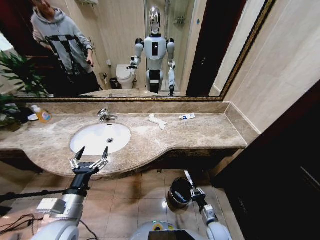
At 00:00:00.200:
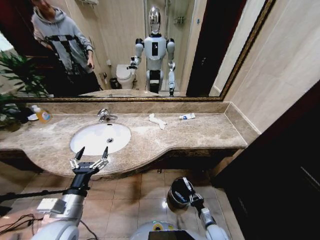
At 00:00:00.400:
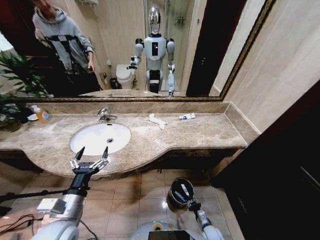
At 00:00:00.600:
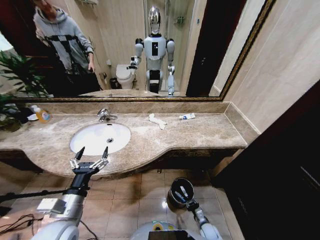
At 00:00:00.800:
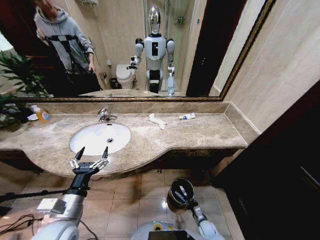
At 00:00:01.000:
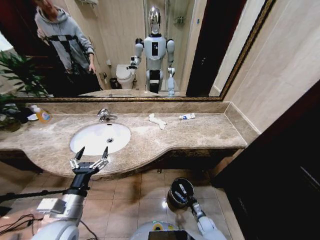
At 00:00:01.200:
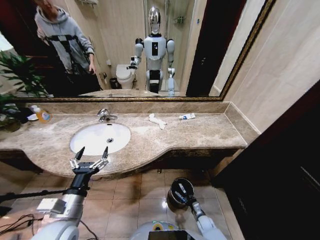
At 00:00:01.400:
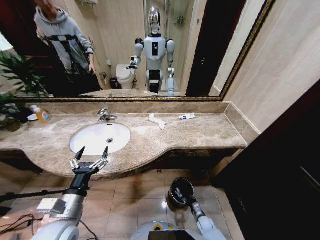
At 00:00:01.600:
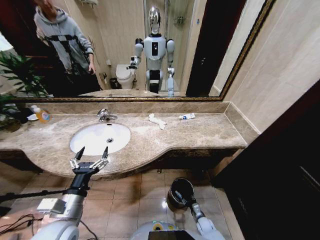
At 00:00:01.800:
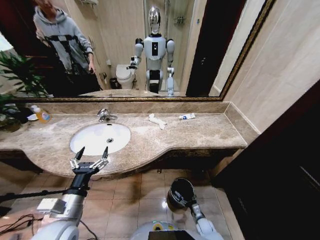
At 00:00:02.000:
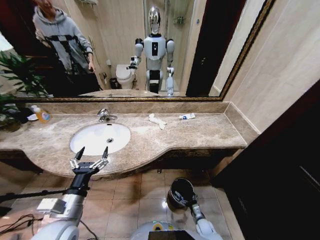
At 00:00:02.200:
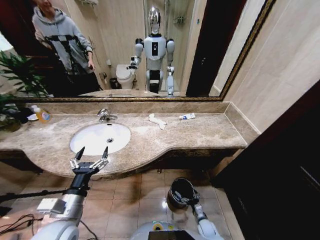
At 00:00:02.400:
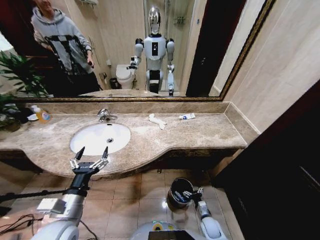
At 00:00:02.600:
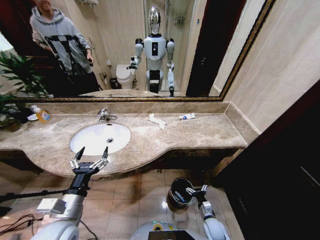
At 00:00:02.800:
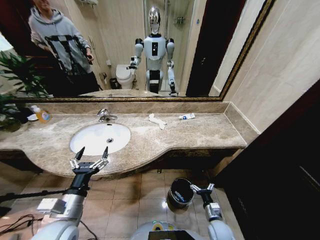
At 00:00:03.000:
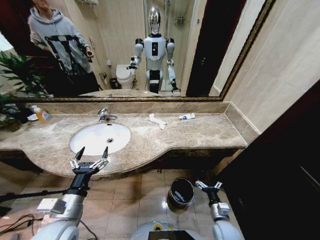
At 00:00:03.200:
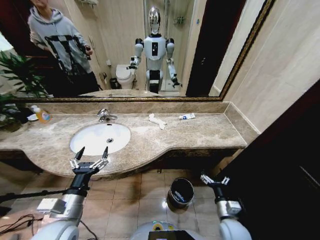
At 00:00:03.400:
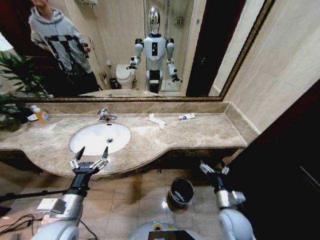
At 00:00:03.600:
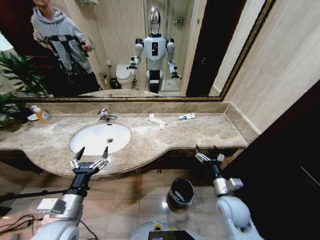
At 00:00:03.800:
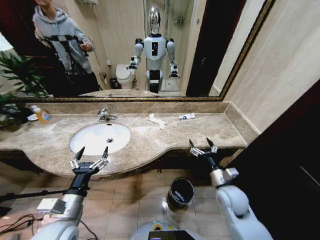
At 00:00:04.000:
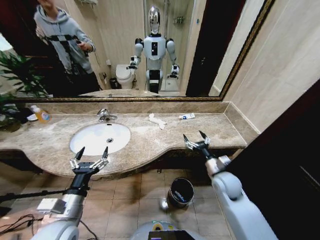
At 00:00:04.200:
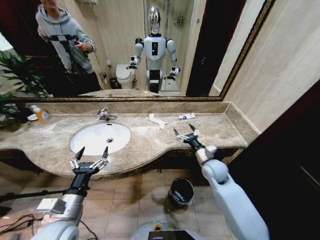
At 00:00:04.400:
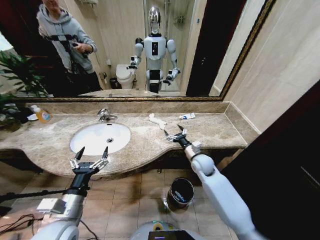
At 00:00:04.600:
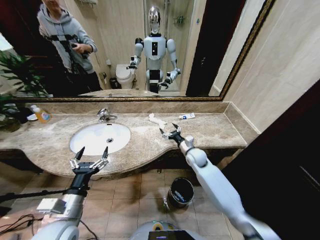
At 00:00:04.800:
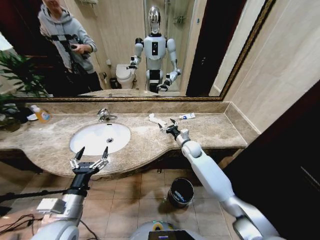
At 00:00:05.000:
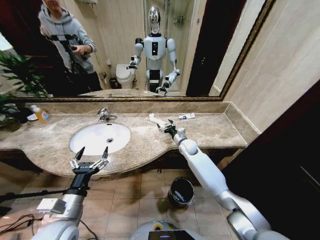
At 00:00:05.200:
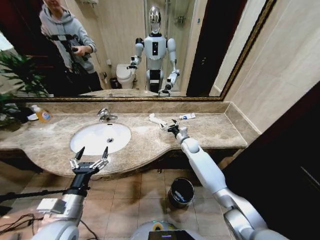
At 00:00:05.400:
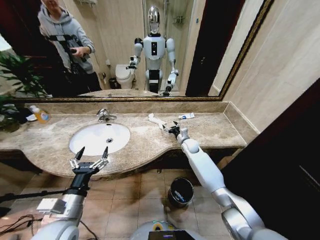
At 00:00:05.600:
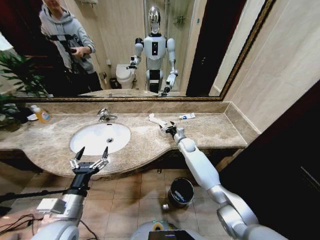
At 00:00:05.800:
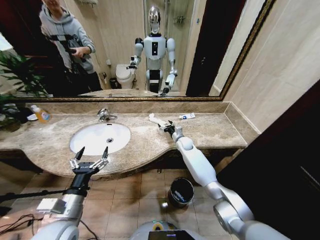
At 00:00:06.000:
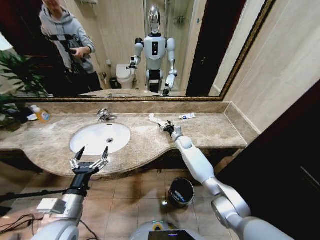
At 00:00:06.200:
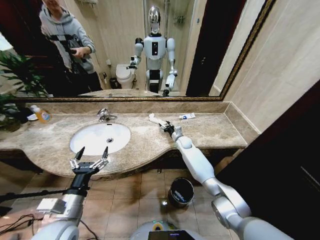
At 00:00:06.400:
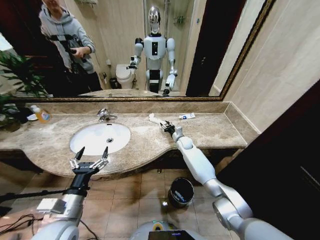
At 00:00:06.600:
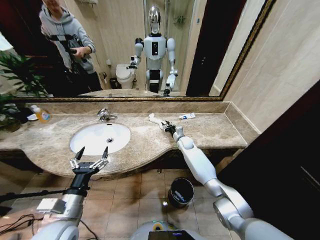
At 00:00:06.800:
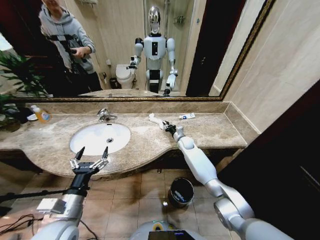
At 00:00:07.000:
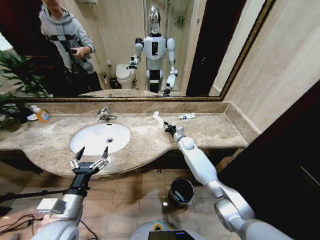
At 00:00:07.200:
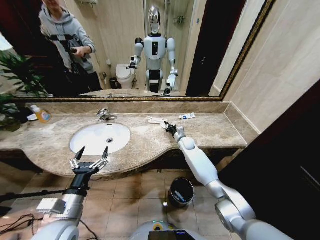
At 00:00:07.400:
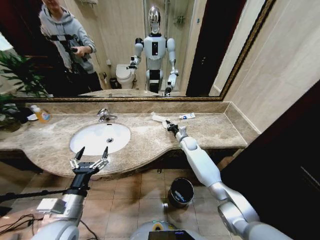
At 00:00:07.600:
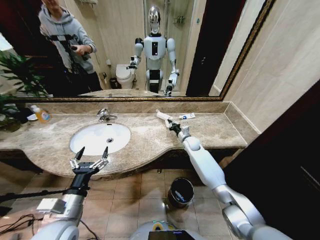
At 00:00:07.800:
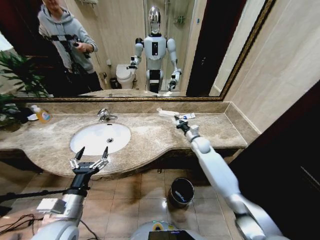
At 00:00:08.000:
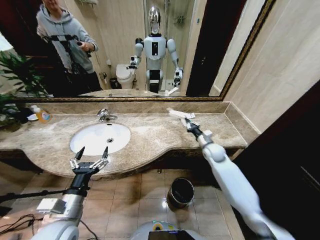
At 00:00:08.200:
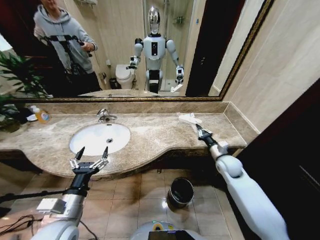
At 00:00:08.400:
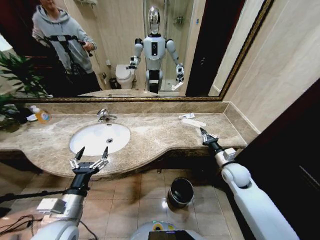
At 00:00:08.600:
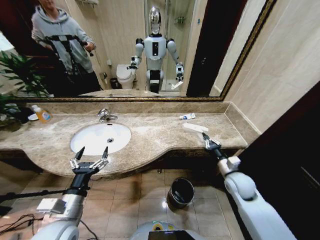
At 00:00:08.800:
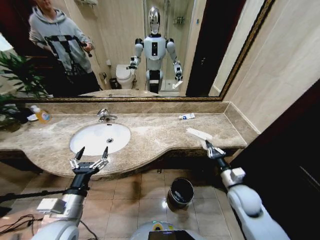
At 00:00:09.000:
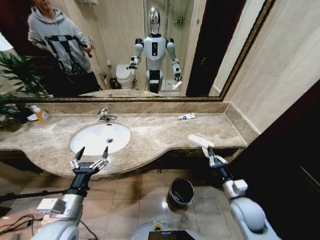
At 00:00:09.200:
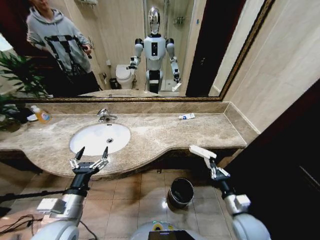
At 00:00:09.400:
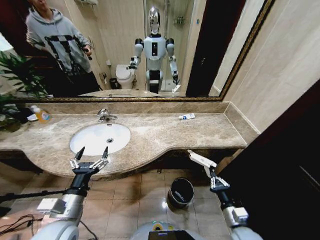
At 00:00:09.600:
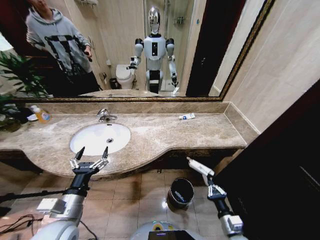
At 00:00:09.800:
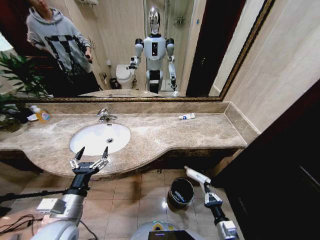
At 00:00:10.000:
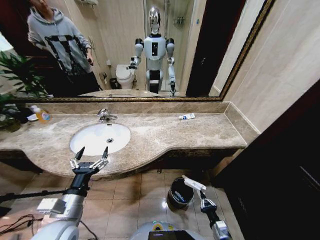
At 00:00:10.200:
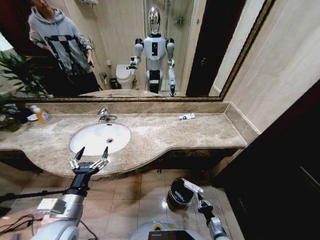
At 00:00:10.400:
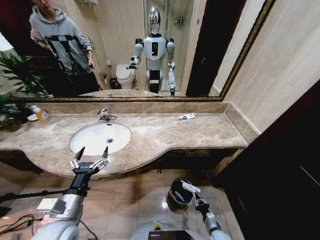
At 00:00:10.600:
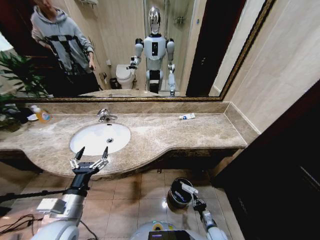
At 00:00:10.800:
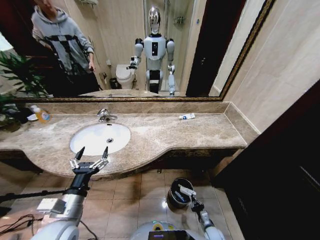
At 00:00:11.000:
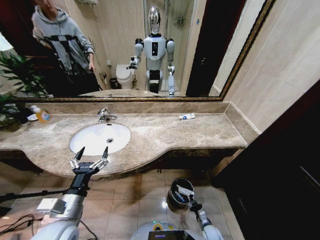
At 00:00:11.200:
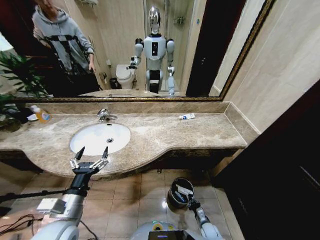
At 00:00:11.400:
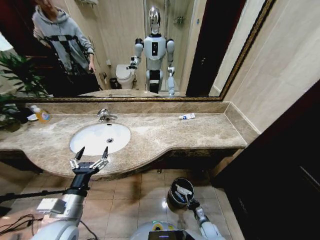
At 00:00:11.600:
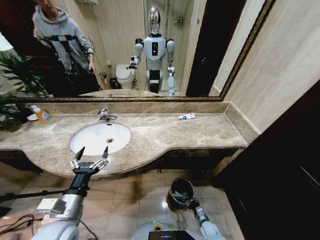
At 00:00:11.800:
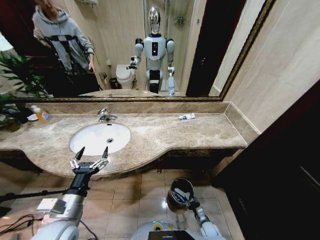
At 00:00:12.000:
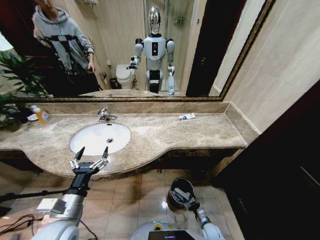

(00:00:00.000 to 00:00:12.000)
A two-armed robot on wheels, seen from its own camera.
Task of the whole recording: Pick up the trash from the sink and place it in the trash bin.
00:00:00.000 - 00:00:01.600: The right gripper shifts some 15 cm downward.
00:00:01.600 - 00:00:03.000: The right gripper is displaced upward by approximately 20 cm, and opens up.
00:00:03.000 - 00:00:04.400: The right gripper shifts some 30 cm forward and upward.
00:00:04.400 - 00:00:06.000: The right gripper travels forward by roughly 15 cm.
00:00:06.000 - 00:00:07.600: The right gripper shifts by approximately 5 cm, and closes.
00:00:07.600 - 00:00:09.000: The right gripper is displaced backward by some 35 cm.
00:00:09.000 - 00:00:10.400: The right gripper shifts roughly 25 cm downward.
00:00:10.400 - 00:00:12.000: The right gripper moves downward, roughly 5 cm, and opens up.

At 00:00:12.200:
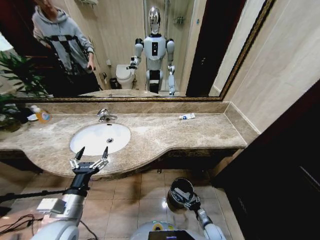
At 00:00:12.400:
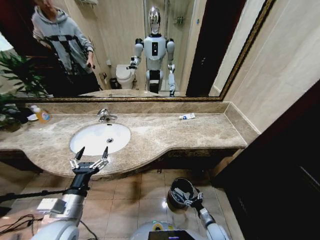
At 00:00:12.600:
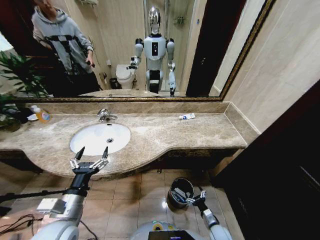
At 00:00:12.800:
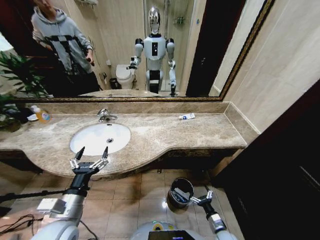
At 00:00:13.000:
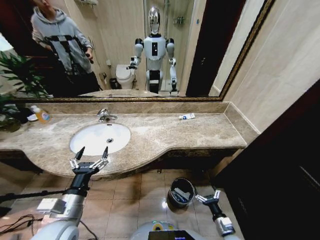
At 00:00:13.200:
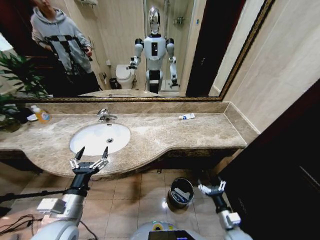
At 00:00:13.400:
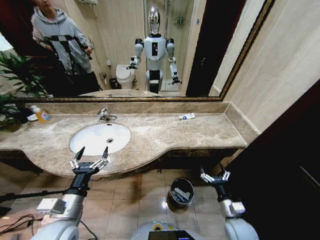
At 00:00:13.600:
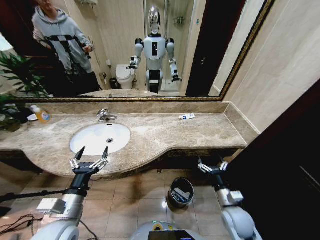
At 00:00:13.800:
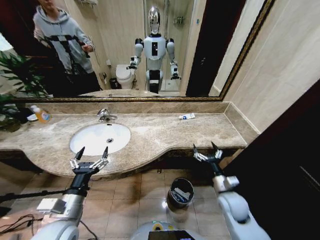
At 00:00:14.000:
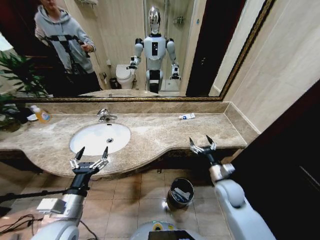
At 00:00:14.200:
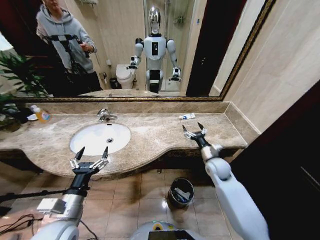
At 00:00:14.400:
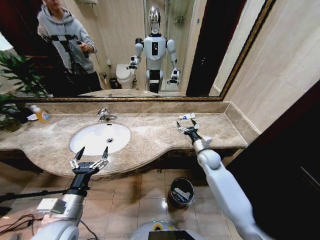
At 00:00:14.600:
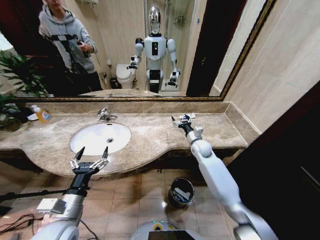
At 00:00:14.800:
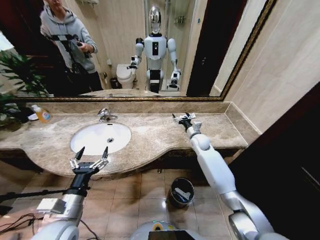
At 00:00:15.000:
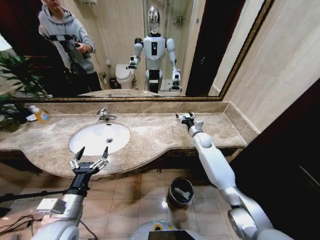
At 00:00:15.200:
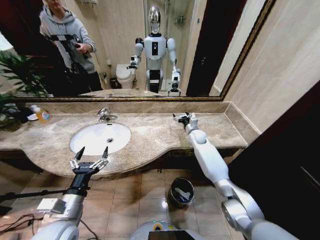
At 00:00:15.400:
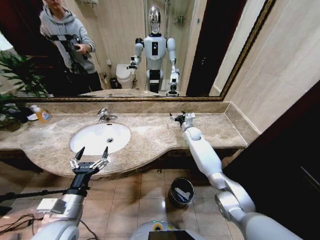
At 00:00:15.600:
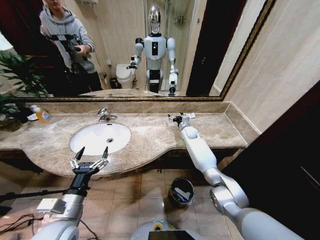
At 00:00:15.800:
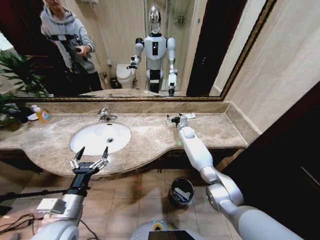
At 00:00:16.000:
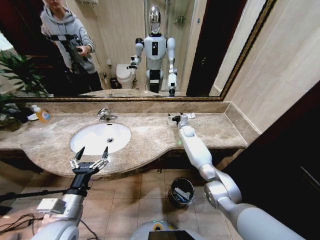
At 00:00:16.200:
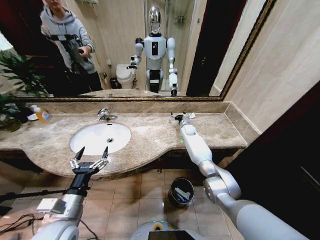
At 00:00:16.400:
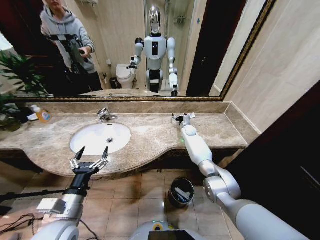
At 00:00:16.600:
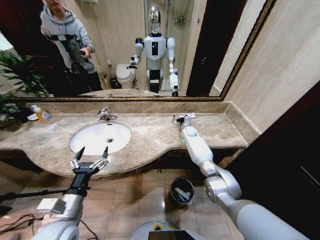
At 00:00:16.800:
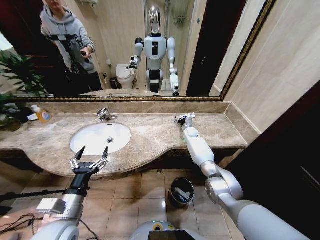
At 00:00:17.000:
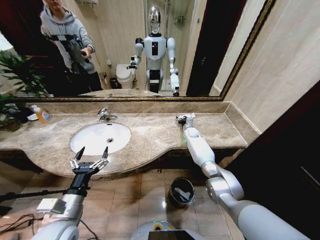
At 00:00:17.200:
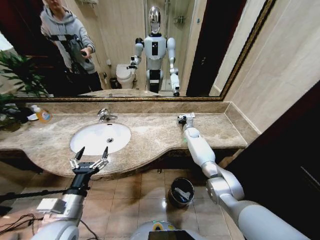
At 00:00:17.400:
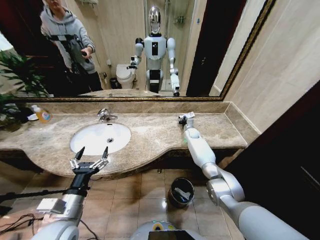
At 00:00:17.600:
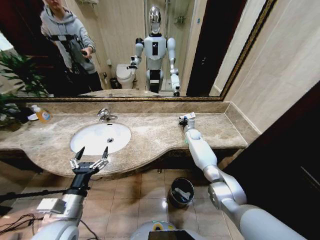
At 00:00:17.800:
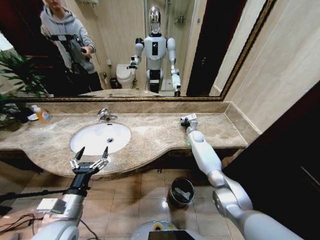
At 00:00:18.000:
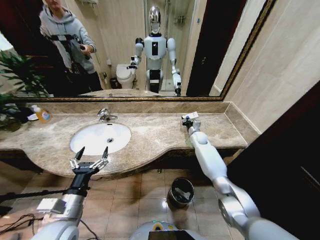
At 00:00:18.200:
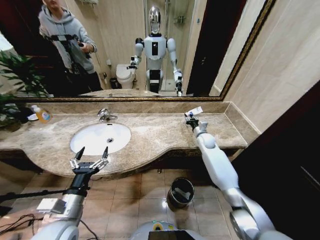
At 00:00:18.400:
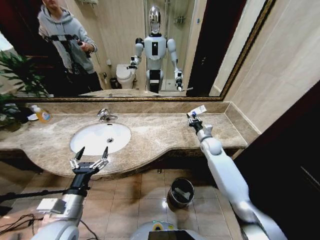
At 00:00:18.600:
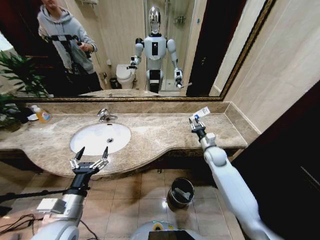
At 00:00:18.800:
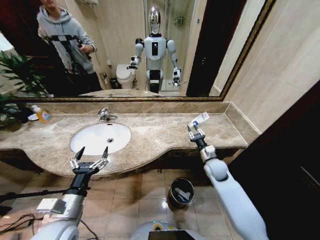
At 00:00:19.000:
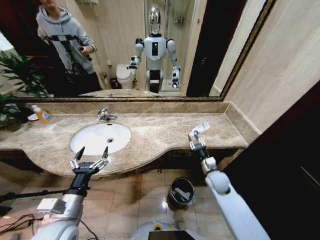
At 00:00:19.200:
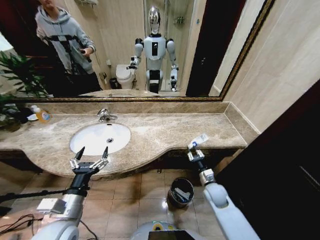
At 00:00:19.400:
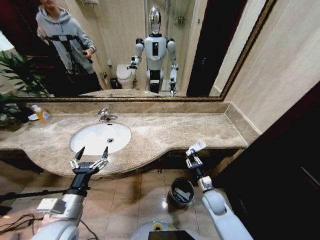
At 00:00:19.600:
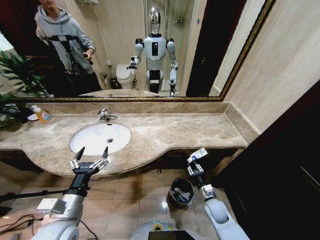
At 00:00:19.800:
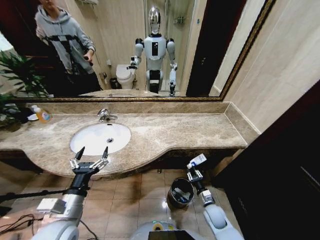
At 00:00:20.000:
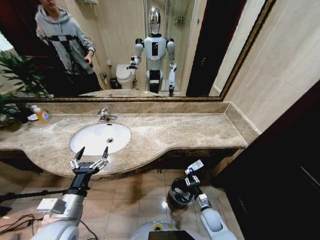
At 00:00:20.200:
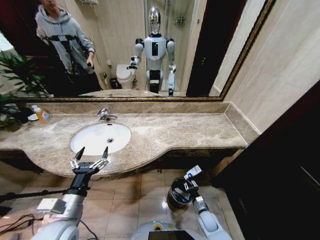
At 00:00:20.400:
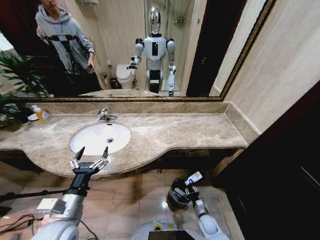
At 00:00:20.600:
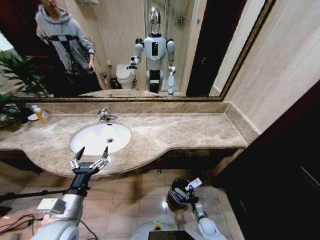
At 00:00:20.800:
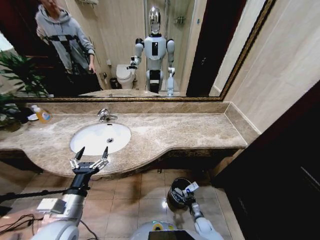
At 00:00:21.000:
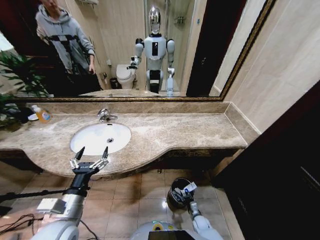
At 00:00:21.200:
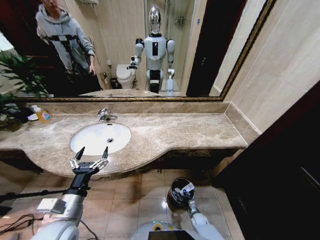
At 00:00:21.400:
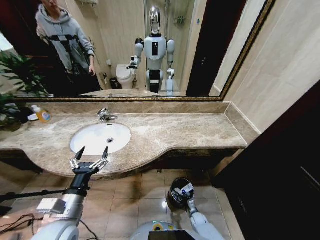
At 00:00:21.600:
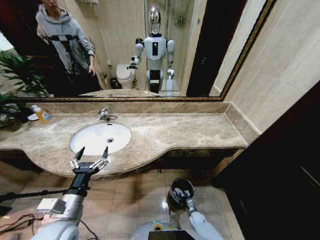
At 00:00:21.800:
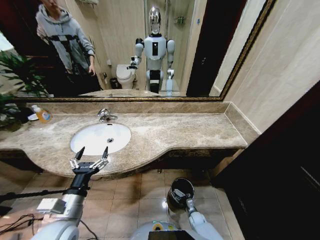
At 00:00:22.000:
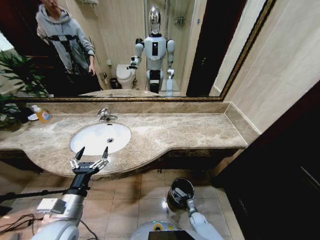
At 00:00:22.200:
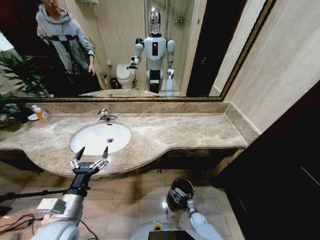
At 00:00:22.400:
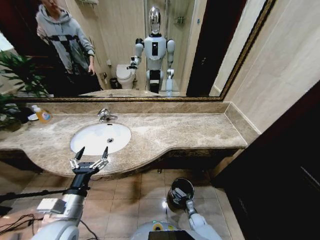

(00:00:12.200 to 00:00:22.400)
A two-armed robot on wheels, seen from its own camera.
Task of the whole recording: Pick up the trash from the sink and place it in the trash bin.
00:00:12.200 - 00:00:13.600: The right gripper is displaced upward by about 30 cm.
00:00:13.600 - 00:00:15.200: The right gripper shifts about 35 cm forward.
00:00:15.200 - 00:00:16.600: The right gripper is displaced forward by about 5 cm.
00:00:16.600 - 00:00:18.000: The right gripper goes about 5 cm backward, and closes up.
00:00:18.000 - 00:00:19.400: The right gripper heads backward, covering approximately 30 cm.
00:00:19.400 - 00:00:21.000: The right gripper heads downward, covering approximately 25 cm.
00:00:21.000 - 00:00:22.400: The right gripper opens.
